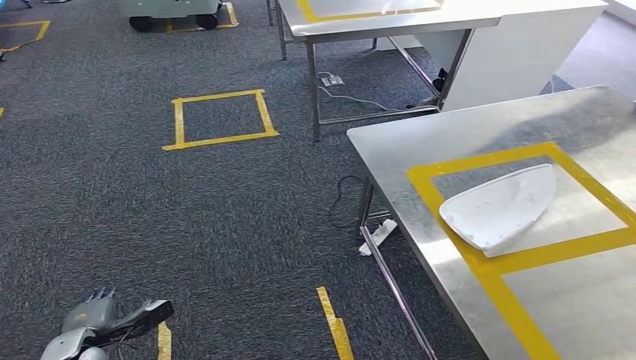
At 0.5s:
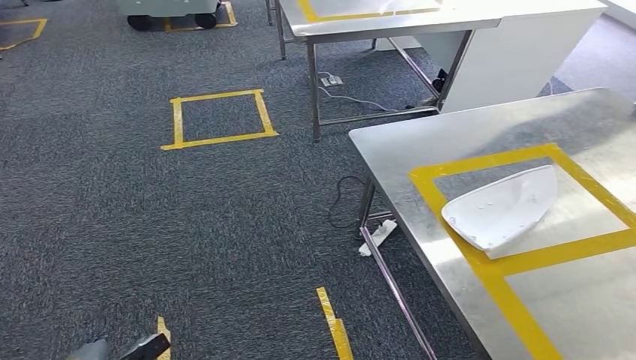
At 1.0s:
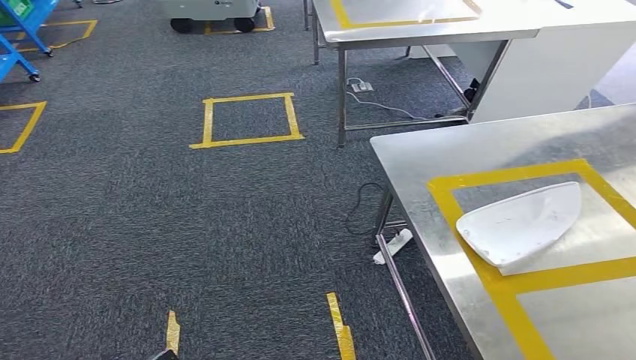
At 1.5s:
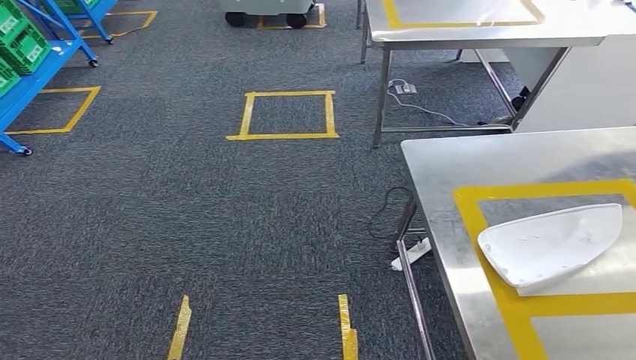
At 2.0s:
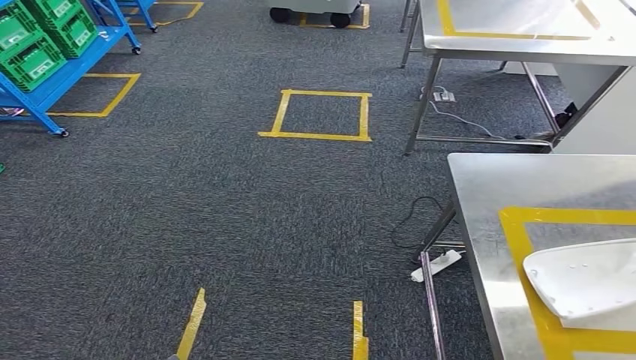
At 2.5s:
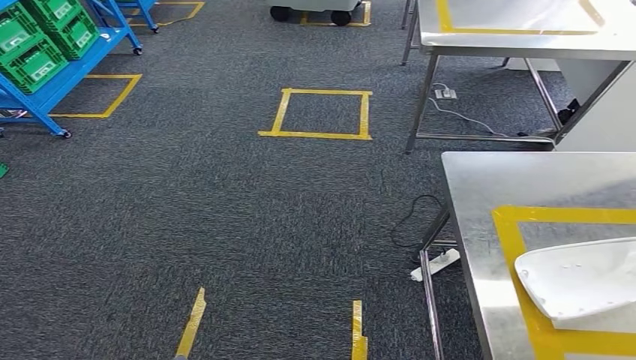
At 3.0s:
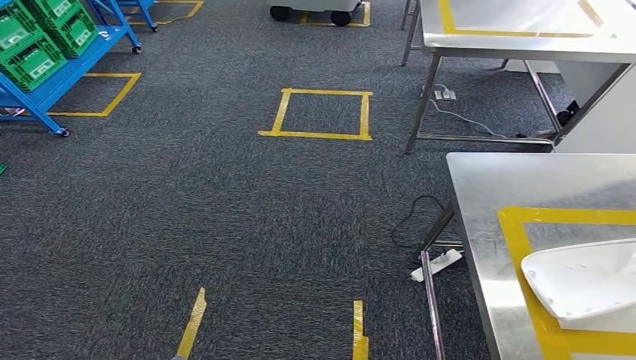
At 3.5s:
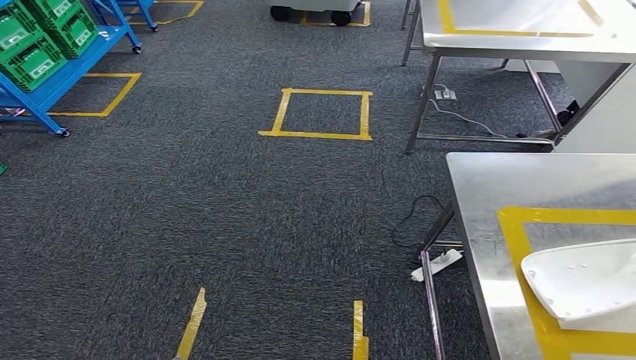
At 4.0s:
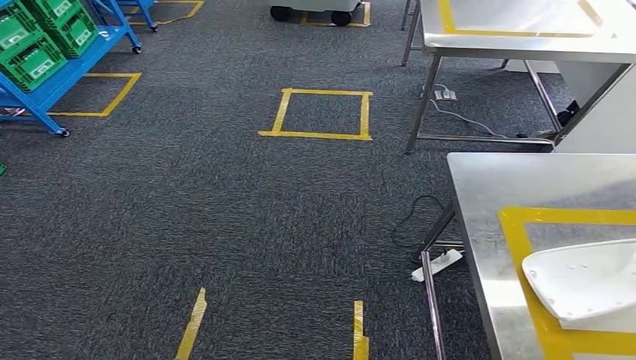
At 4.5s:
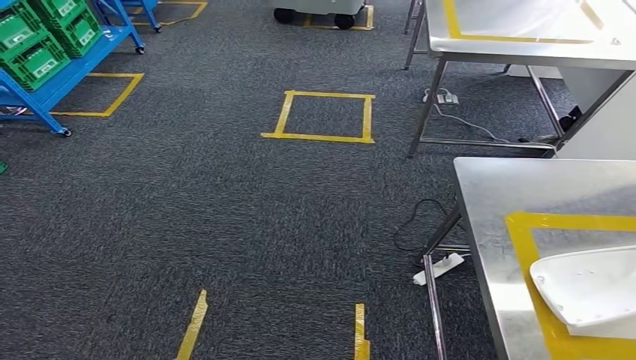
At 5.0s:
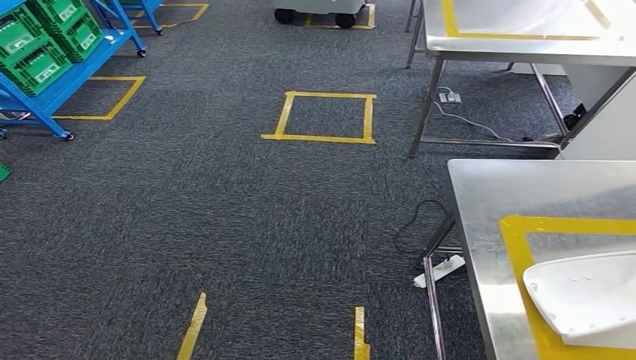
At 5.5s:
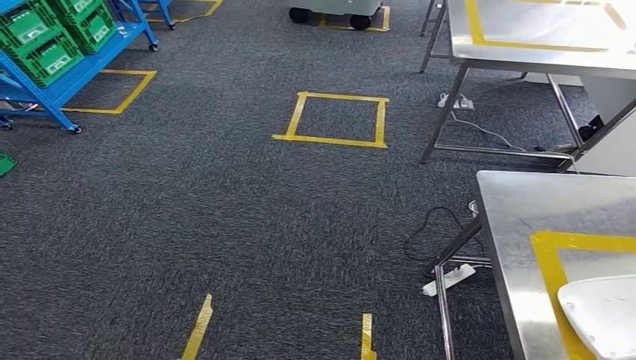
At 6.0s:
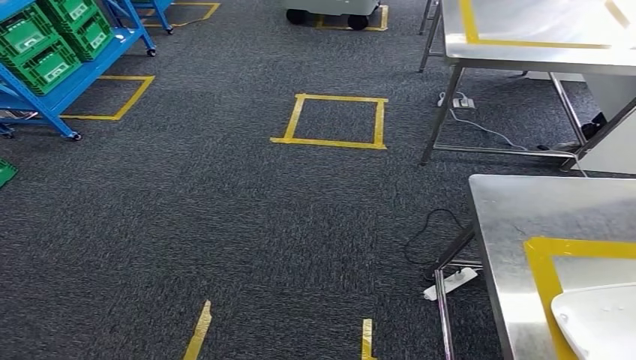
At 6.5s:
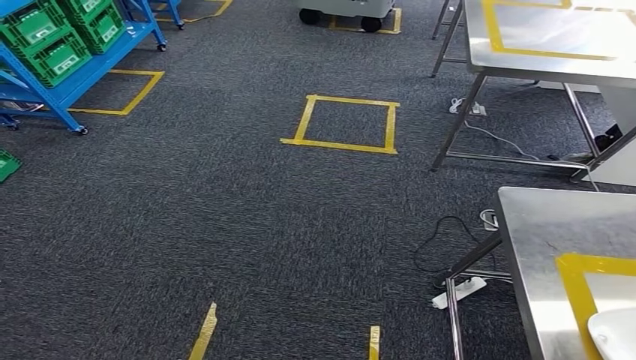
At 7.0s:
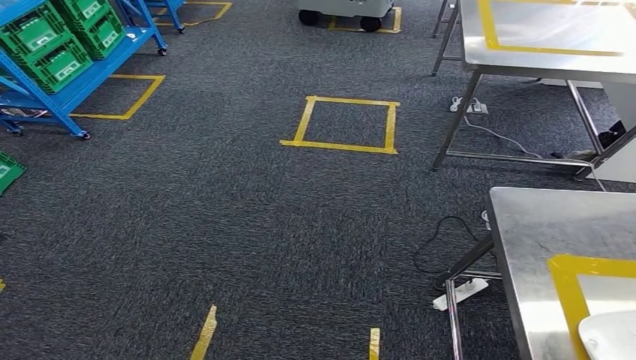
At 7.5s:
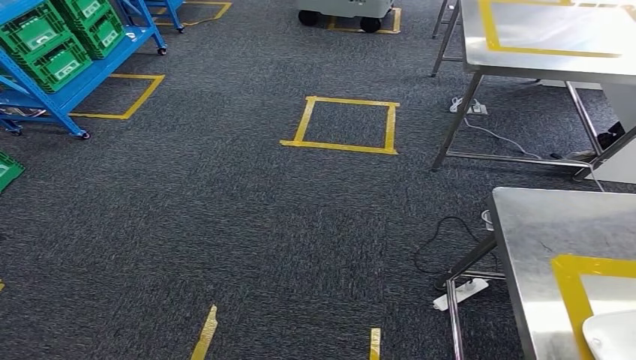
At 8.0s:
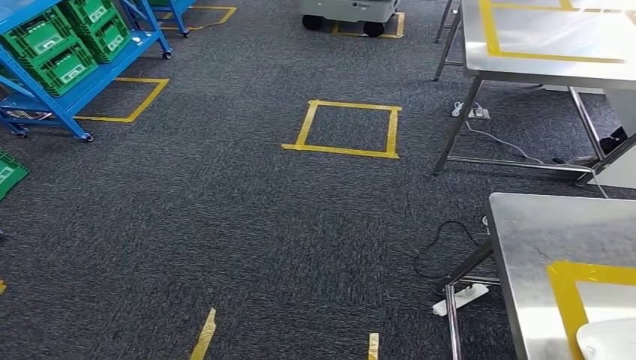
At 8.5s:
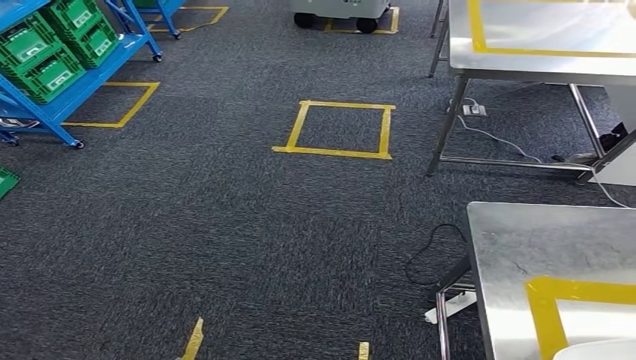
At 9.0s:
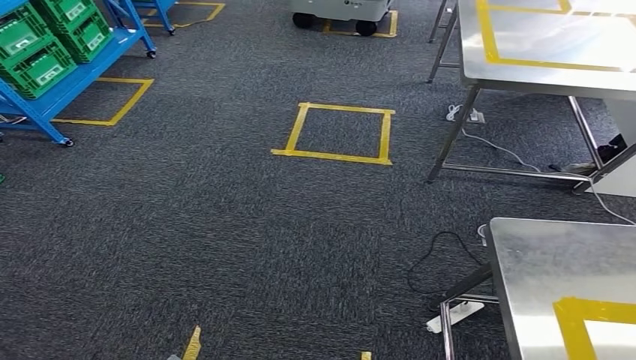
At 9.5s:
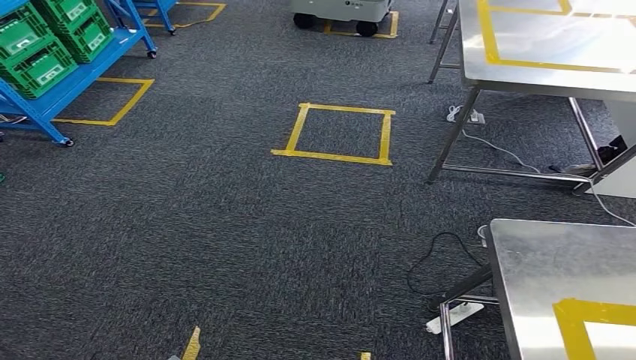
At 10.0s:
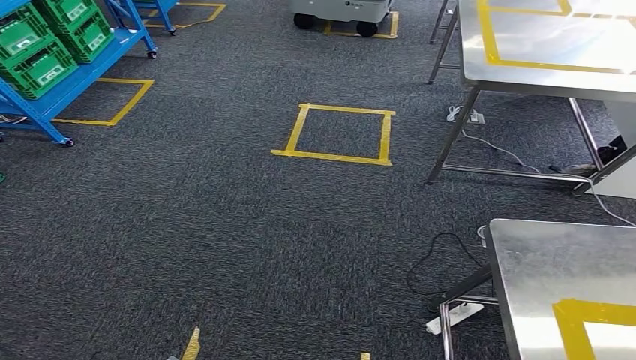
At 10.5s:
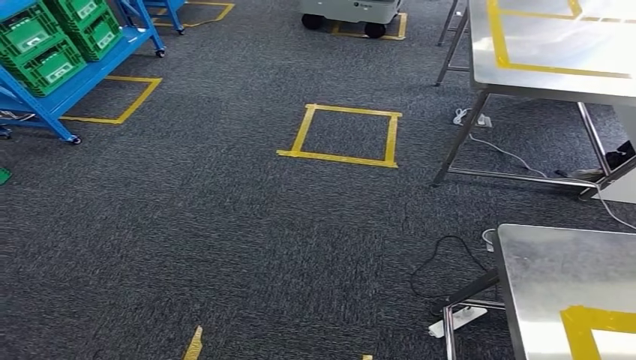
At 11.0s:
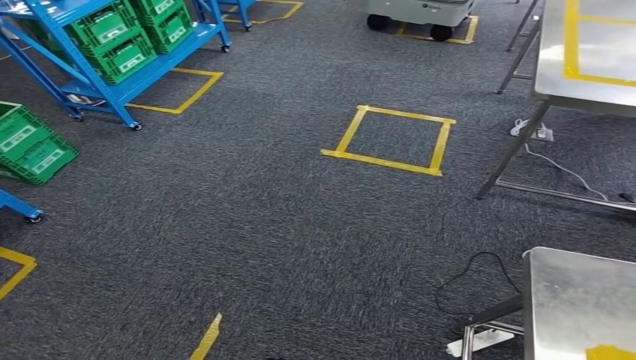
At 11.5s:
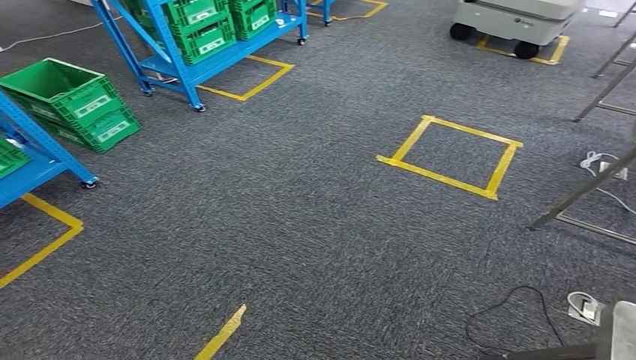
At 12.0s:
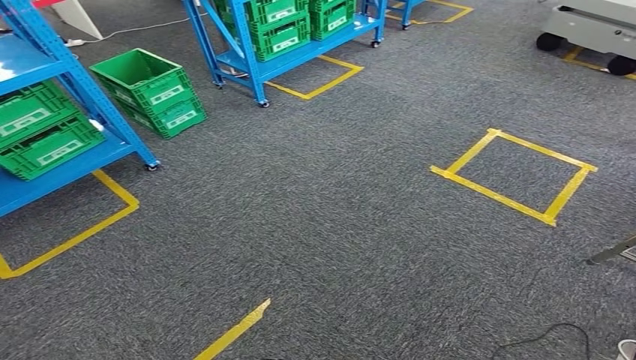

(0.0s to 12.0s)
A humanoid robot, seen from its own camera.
2.0s - 4.0s: There are only small adjustments of the hands.
8.0s - 10.0s: Both hands stay put.

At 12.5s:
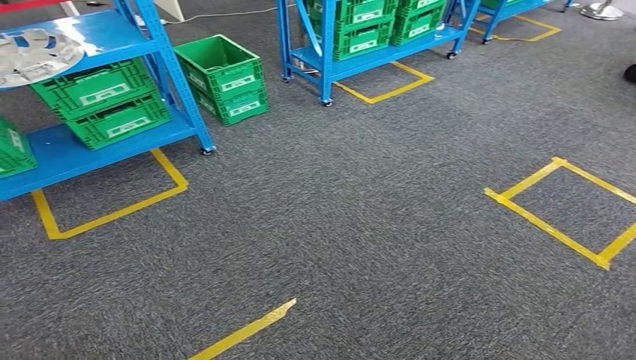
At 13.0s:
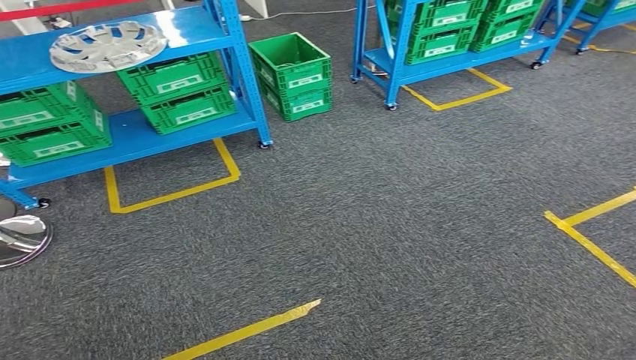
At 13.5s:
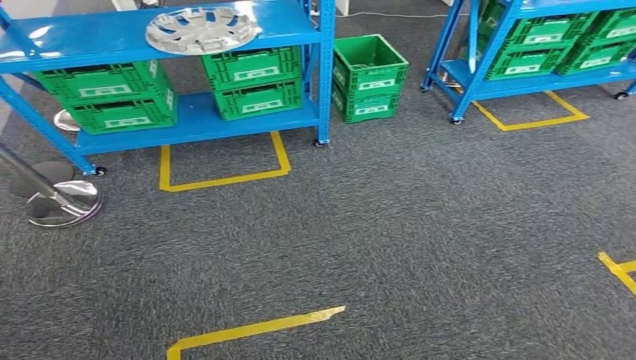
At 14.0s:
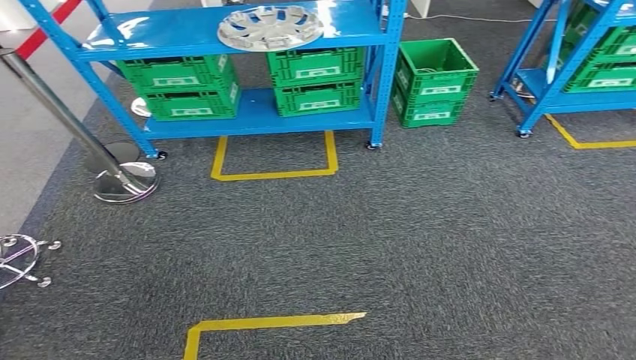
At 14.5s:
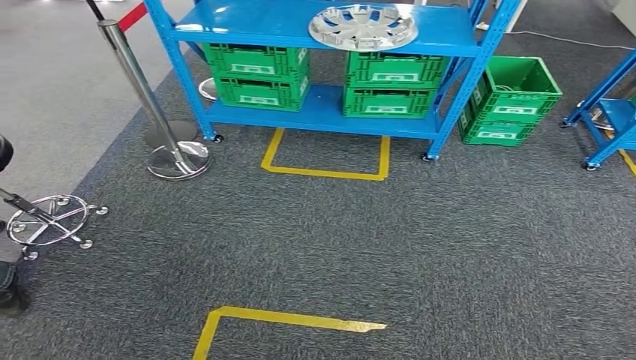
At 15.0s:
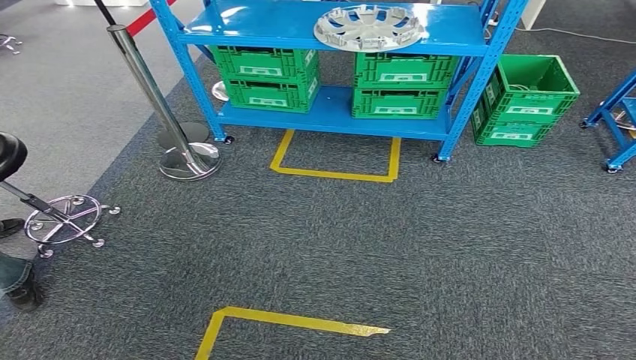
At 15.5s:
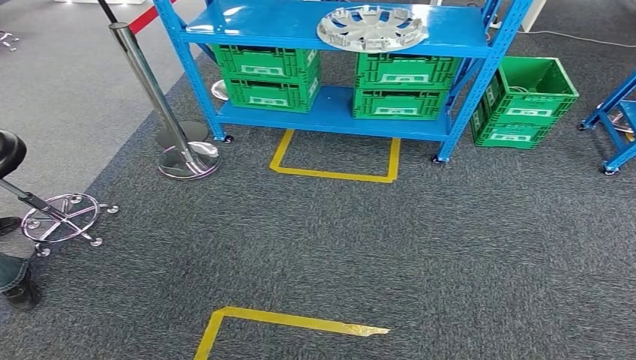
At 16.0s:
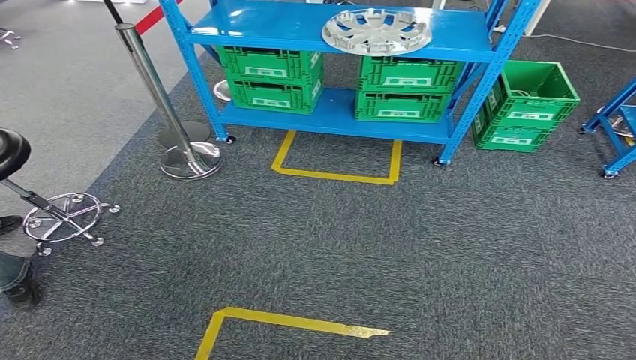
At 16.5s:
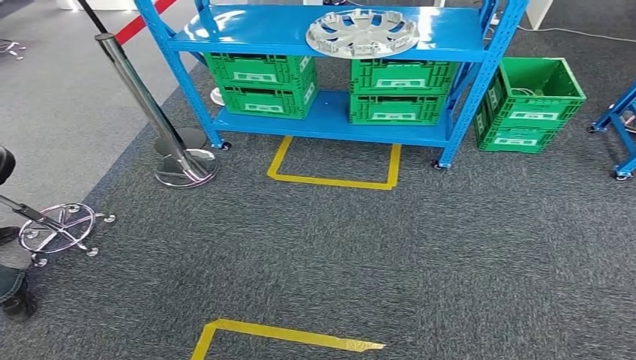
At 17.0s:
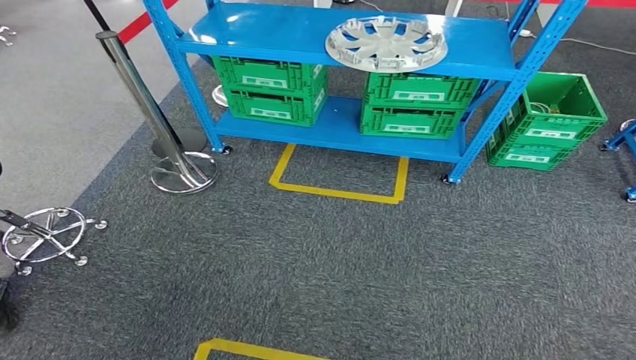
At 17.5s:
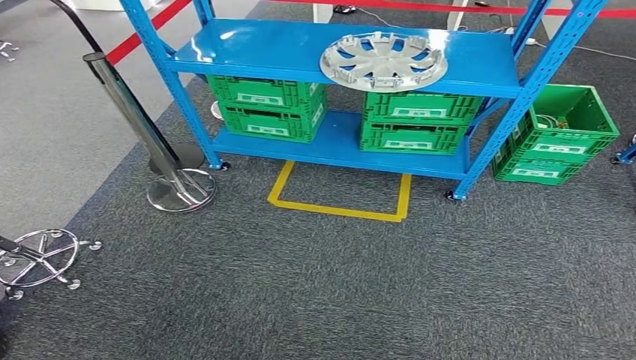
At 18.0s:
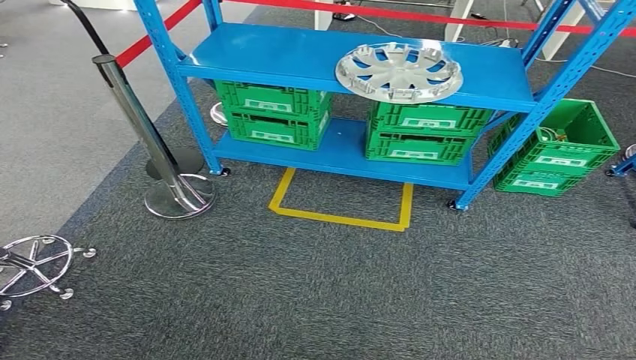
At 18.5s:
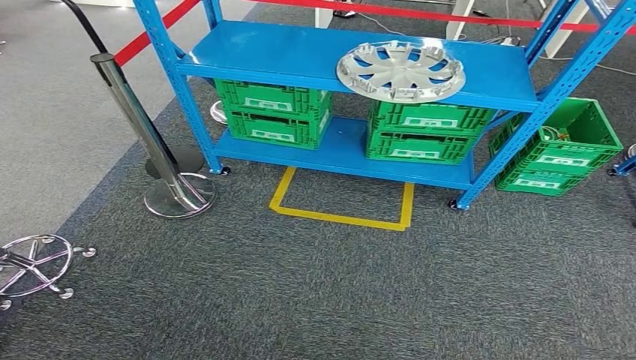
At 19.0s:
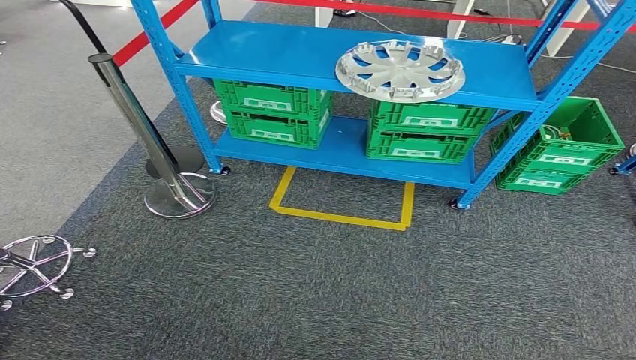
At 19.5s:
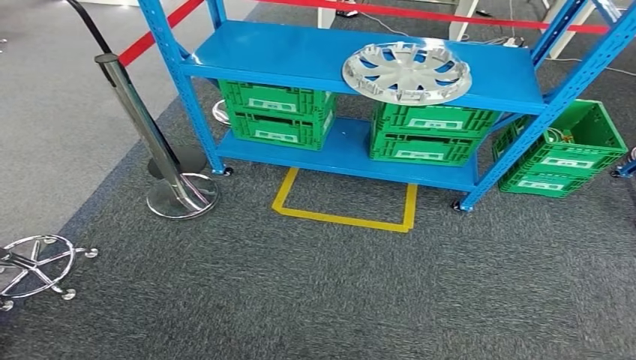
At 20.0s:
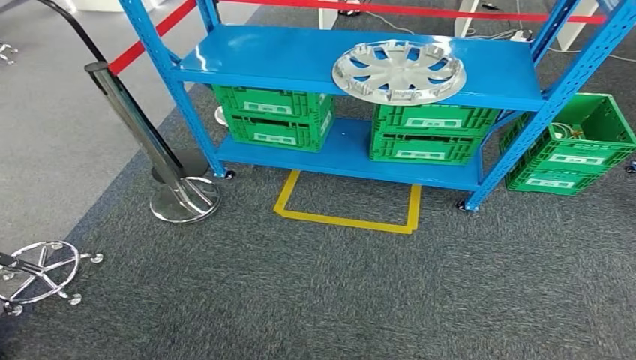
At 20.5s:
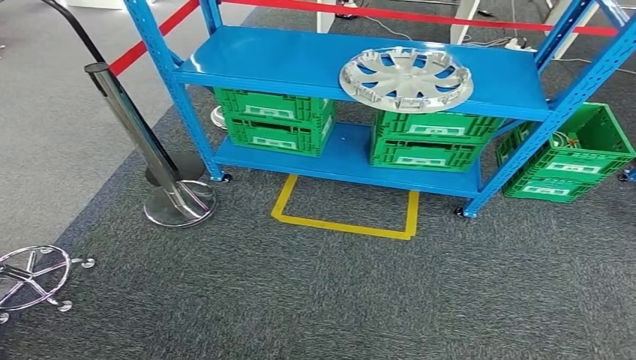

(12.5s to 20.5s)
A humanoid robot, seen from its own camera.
Step, 12.5s - 20.5s: Move to the initial position at the workbench.
